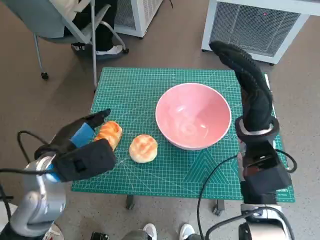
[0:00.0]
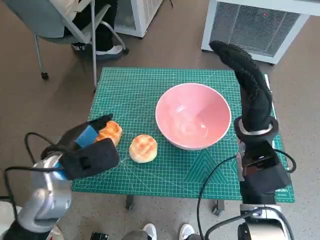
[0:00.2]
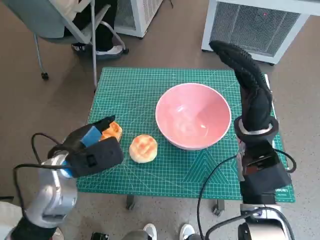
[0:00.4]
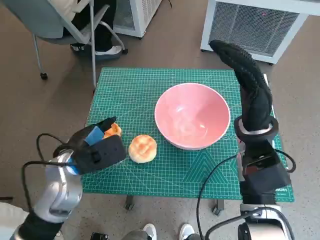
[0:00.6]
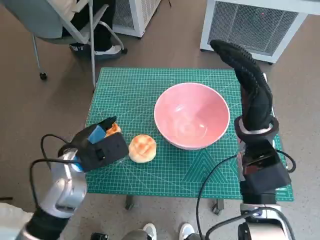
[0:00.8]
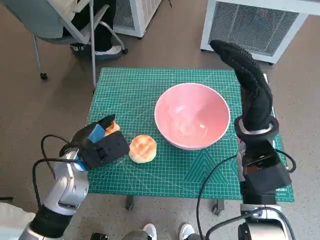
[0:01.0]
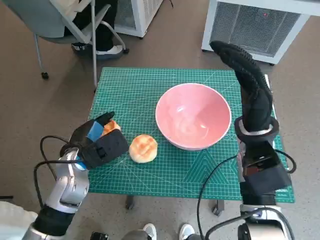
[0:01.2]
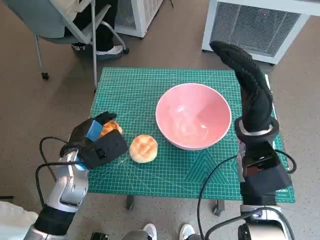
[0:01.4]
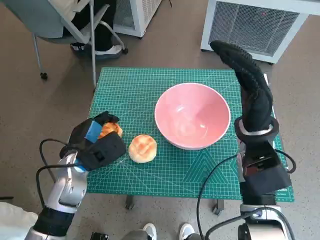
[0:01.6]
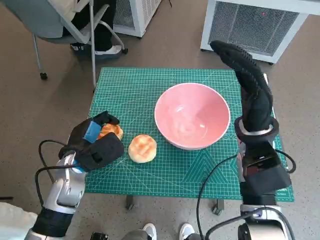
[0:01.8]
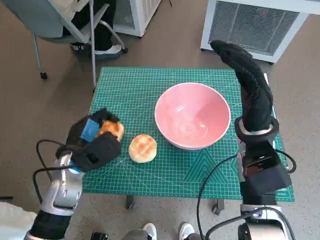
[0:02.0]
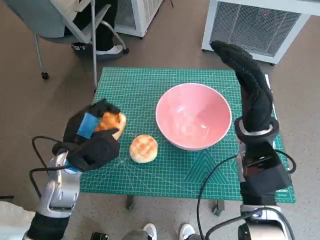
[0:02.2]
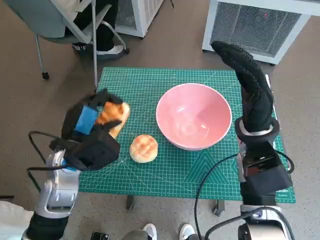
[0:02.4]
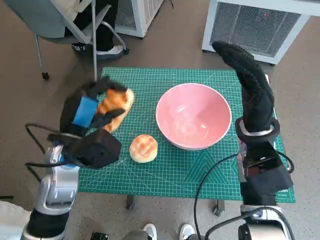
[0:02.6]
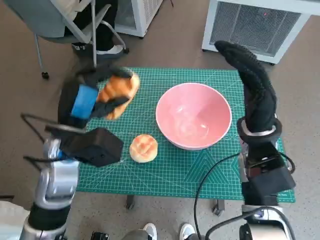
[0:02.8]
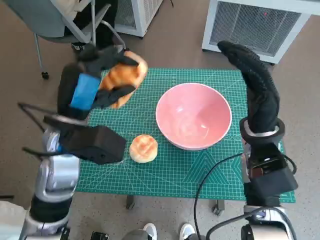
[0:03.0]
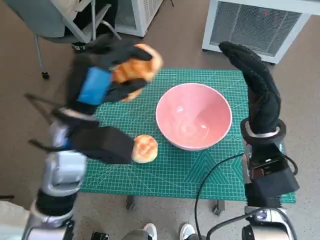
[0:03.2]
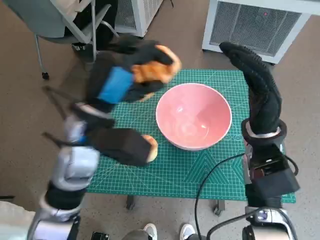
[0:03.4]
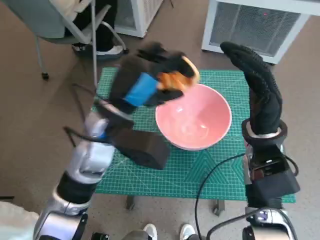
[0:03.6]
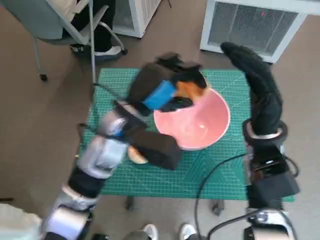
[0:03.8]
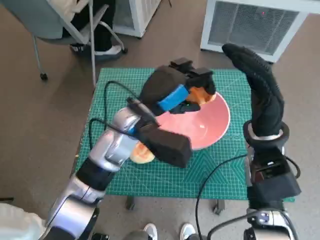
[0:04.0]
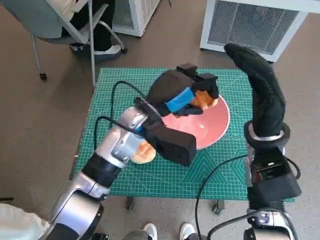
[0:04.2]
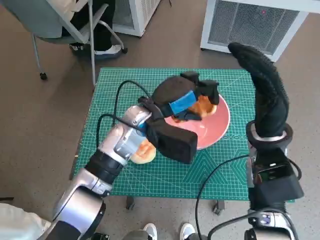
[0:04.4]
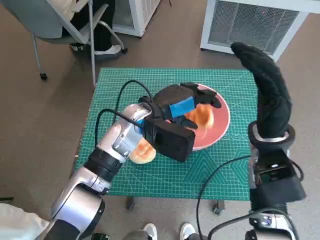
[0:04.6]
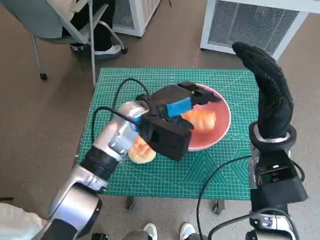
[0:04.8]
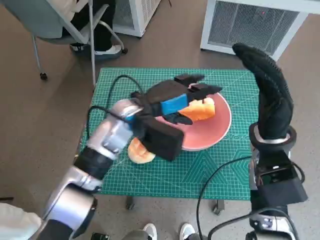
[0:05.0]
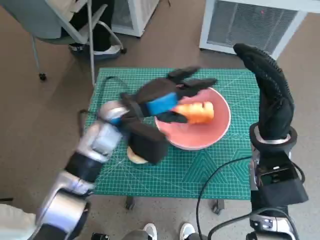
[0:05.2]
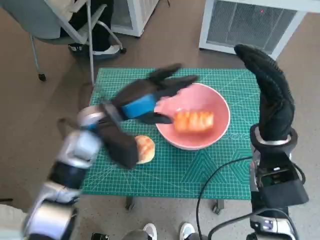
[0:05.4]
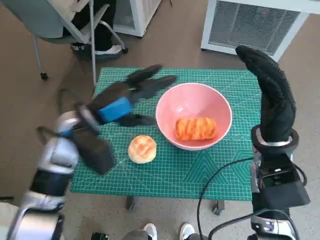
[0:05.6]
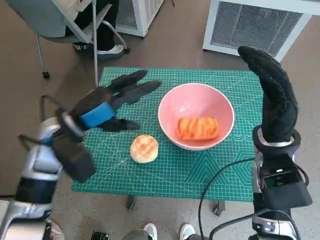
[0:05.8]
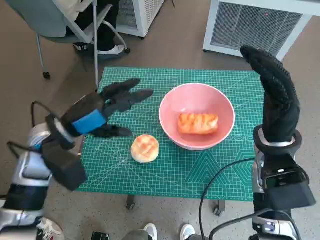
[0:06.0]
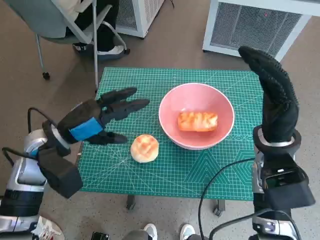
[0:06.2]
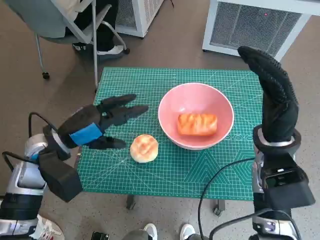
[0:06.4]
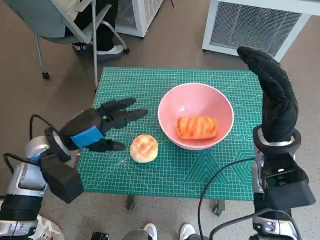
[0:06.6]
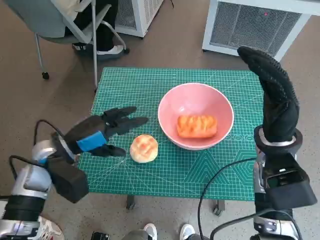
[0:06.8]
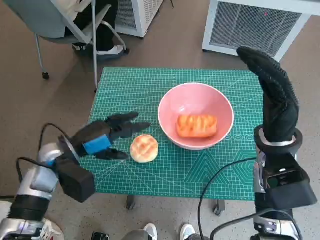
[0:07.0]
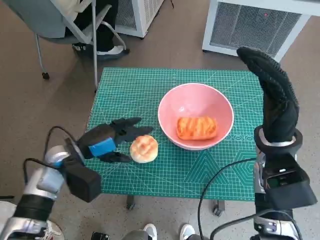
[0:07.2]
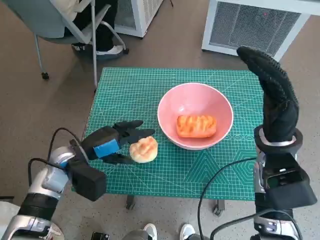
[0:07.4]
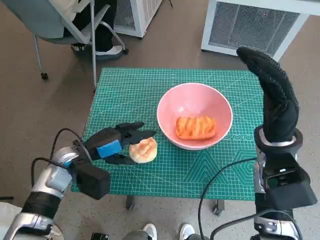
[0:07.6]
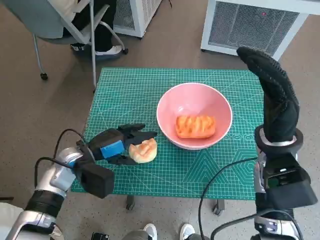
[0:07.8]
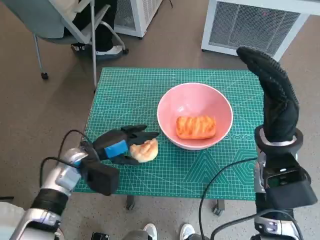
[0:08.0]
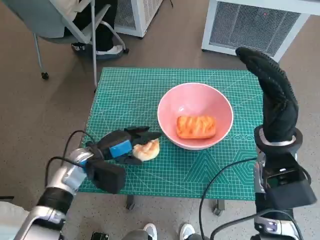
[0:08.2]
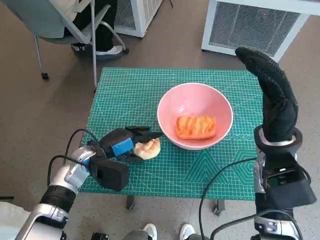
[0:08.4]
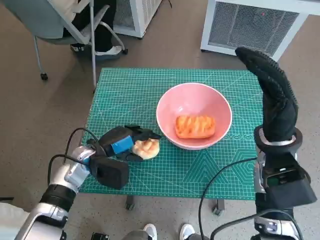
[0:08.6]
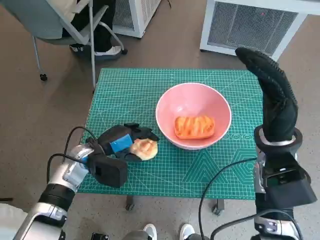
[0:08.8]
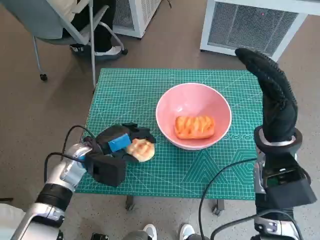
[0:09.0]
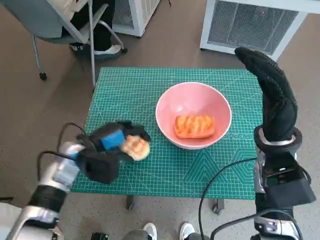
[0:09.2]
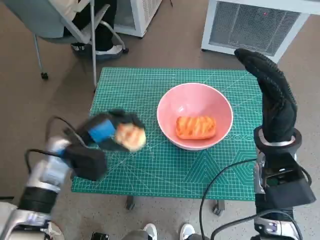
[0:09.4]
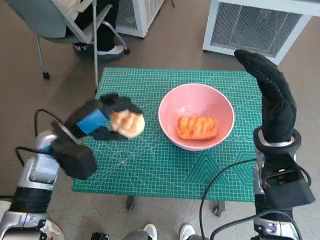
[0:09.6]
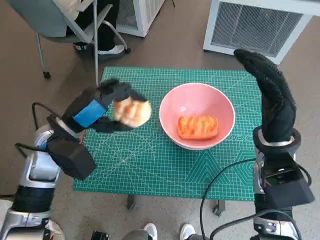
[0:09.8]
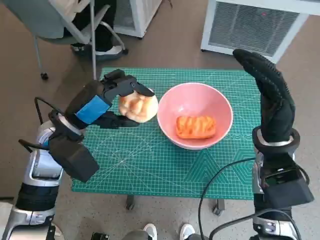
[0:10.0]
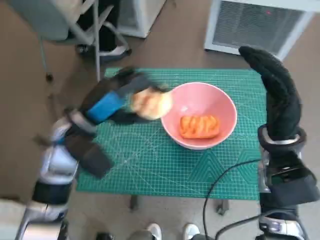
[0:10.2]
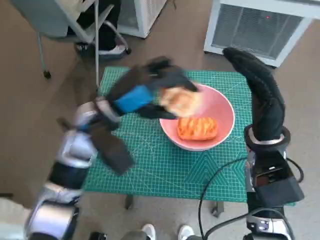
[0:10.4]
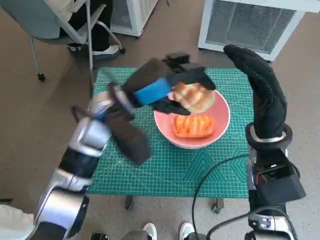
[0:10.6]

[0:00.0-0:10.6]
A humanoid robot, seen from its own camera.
Task of the whole recording: Push the bowl to the center of the table and put the bread into the bowl.
Step, 0:01.8 to 0:05.2: Place the long bread in pink bowl with left hand.
Step, 0:05.6 to 0:08.4: Grasp the round bread with left hand.
0:00.0 to 0:01.6: The left hand moves downward, approximately 5 cm.
0:01.6 to 0:03.0: The left hand moves upward, about 10 cm.
0:03.0 to 0:04.6: The left hand travels to the right and forward by about 15 cm.
0:04.6 to 0:06.0: The left hand goes some 15 cm to the left.
0:06.0 to 0:07.6: The left hand travels downward by roughly 10 cm.
0:07.6 to 0:09.0: The hands move only a little.
0:09.0 to 0:10.6: The left hand heads upward and to the right, covering roughly 15 cm.

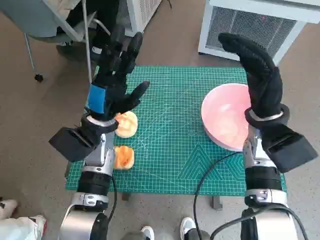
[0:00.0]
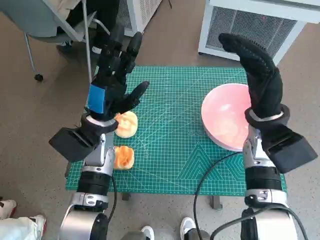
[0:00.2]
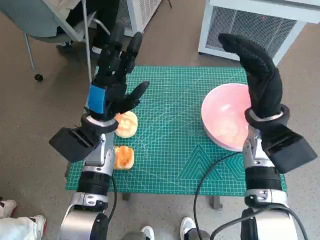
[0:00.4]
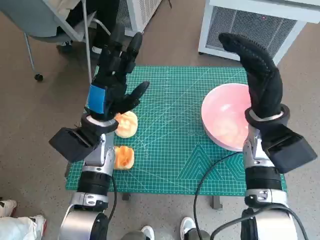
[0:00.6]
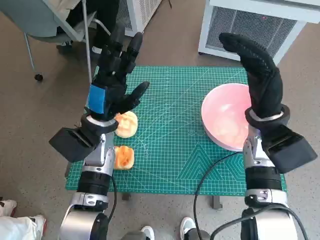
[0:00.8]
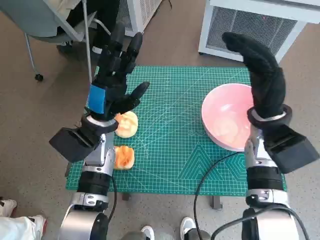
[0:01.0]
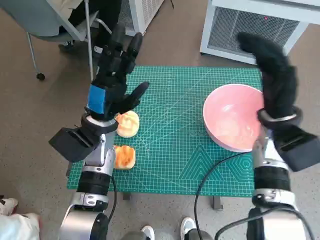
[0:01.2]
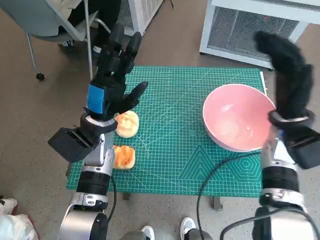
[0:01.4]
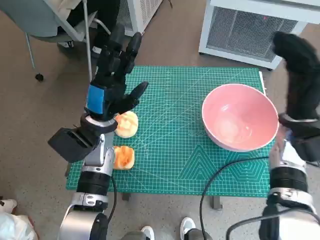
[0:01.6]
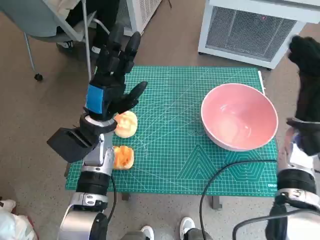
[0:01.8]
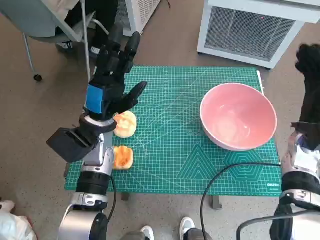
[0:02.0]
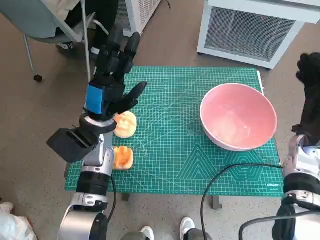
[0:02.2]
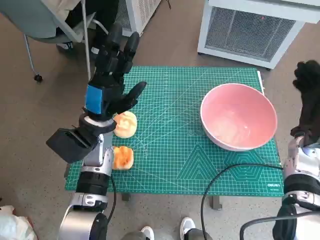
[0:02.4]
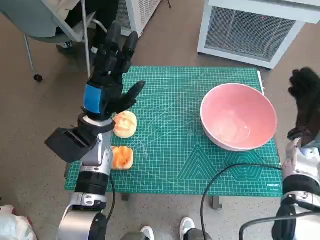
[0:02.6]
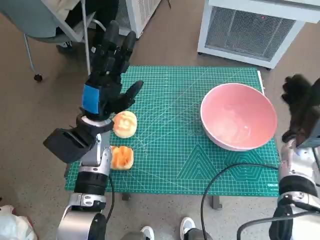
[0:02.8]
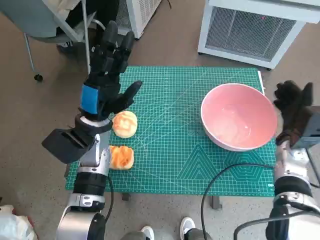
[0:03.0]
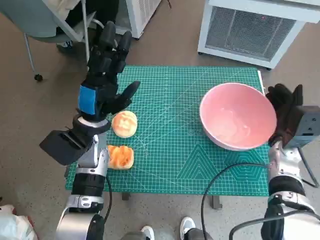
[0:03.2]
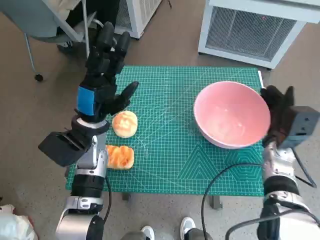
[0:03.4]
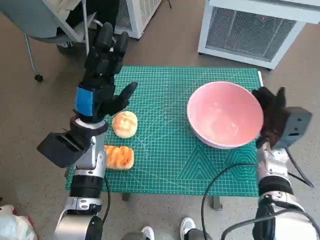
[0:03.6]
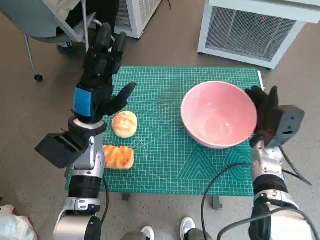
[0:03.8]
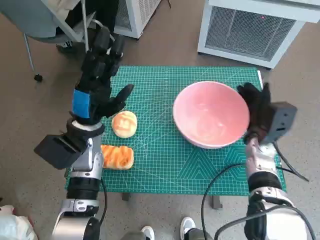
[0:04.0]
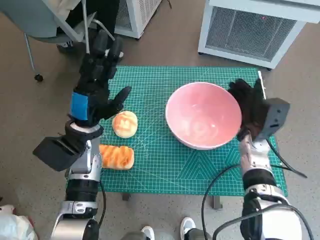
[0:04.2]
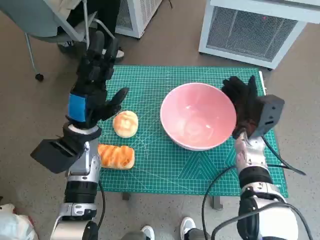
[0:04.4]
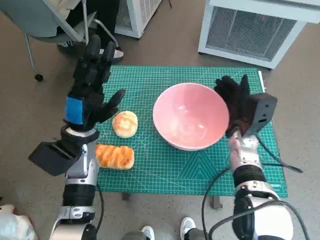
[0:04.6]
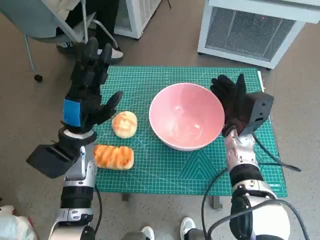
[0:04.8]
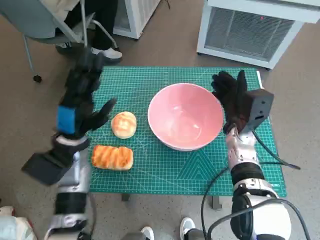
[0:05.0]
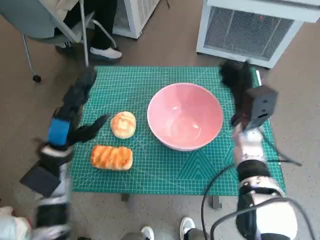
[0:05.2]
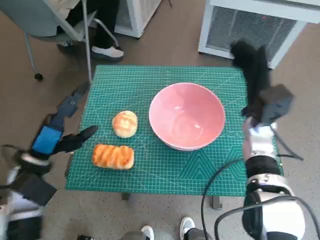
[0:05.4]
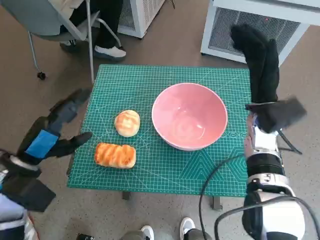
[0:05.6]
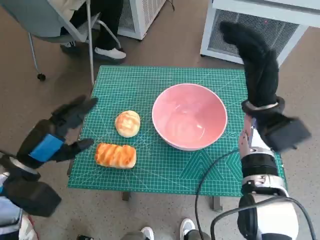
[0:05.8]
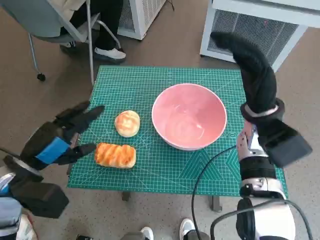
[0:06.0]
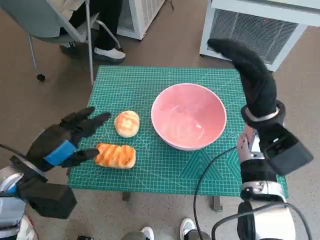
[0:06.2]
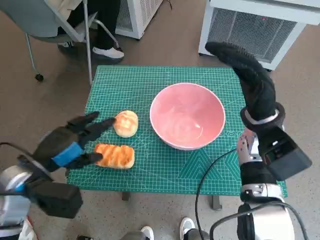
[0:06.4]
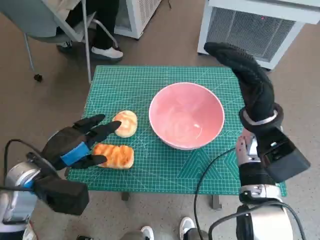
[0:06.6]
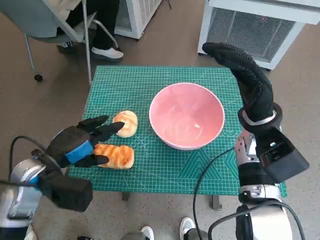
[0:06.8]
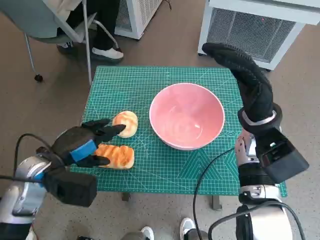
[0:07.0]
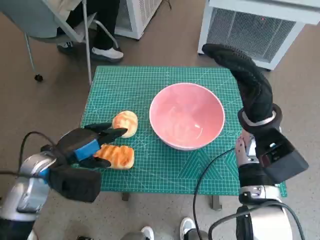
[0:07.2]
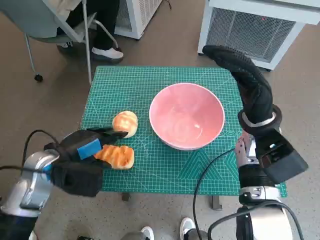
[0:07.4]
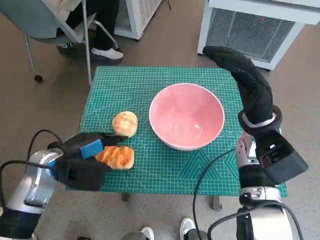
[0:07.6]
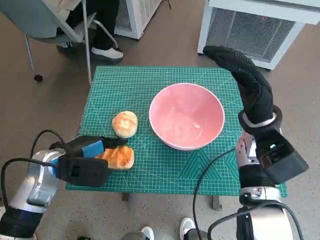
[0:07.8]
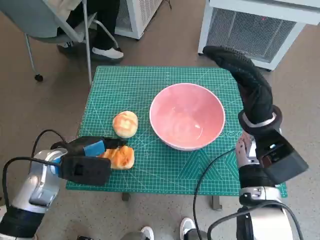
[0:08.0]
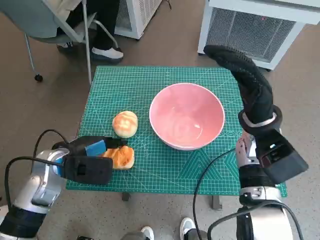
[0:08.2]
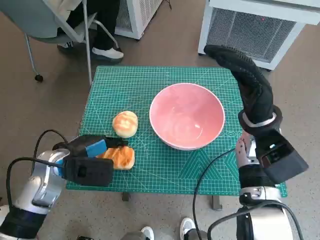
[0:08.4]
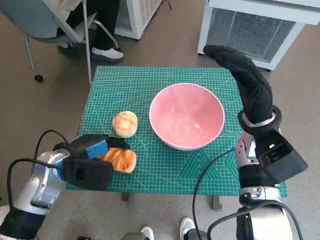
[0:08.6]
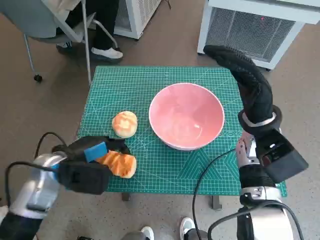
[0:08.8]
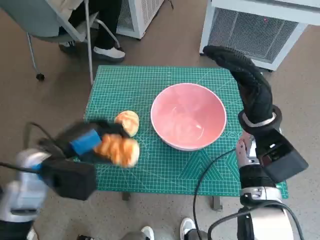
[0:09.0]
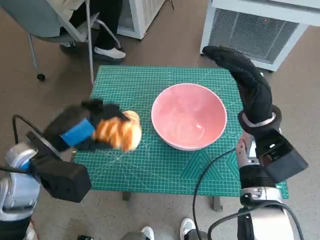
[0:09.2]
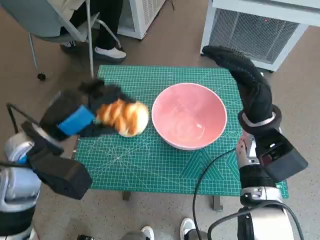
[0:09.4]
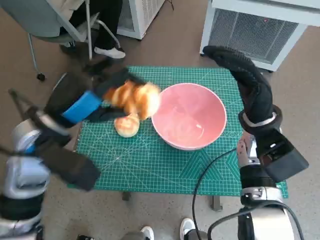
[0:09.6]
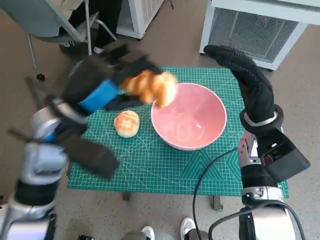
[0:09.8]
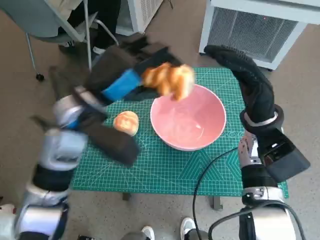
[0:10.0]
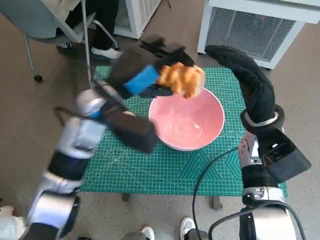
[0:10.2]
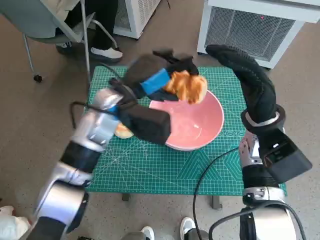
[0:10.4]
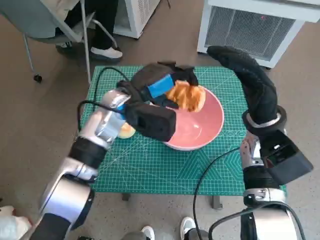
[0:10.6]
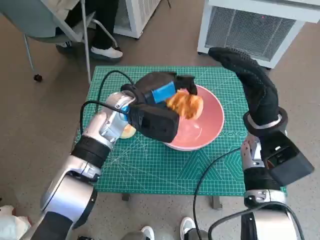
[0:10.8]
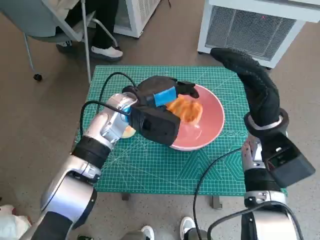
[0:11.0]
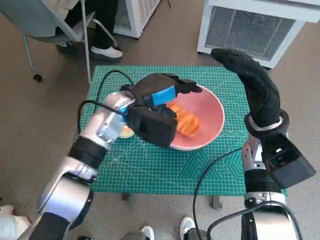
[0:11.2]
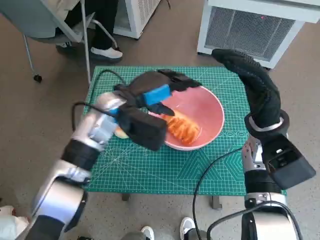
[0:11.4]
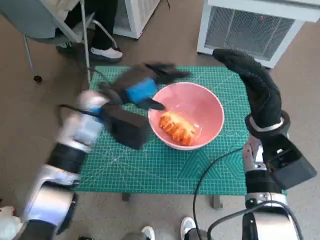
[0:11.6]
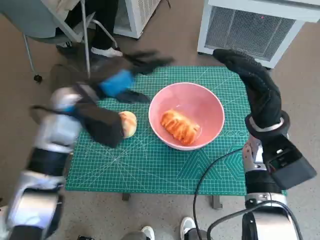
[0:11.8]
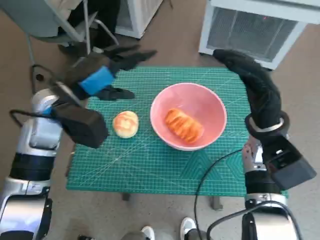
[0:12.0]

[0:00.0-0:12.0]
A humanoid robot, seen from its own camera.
Task of the whole recording: Push the bowl to the center of the table and put the bread into the bowl.
Step, 0:00.0 to 0:05.0: Move the pink bowl to the center of table with right hand.
Step, 0:05.2 to 0:08.2: Grasp the long bread with left hand.
Step, 0:08.4 to 0:11.2: Place the long bread in pink bowl with left hand.
0:01.6 to 0:03.0: The right hand travels downward by roughly 5 cm.
0:03.0 to 0:04.4: The right hand is displaced to the left by about 10 cm.
0:04.4 to 0:06.0: The left hand goes roughly 15 cm backward and to the left; the right hand moves upward, roughly 10 cm.
0:06.0 to 0:07.6: The left hand shifts by some 5 cm.
0:07.6 to 0:09.0: The hands move only a little.
0:09.0 to 0:10.4: The left hand travels to the right, forward and upward by roughly 15 cm.
0:10.4 to 0:12.0: The left hand is displaced to the left by about 10 cm.
